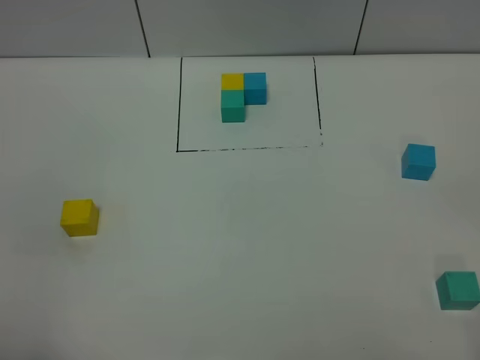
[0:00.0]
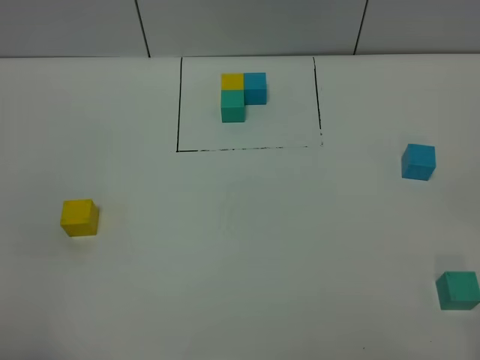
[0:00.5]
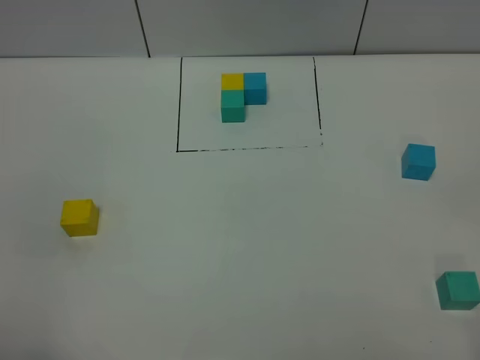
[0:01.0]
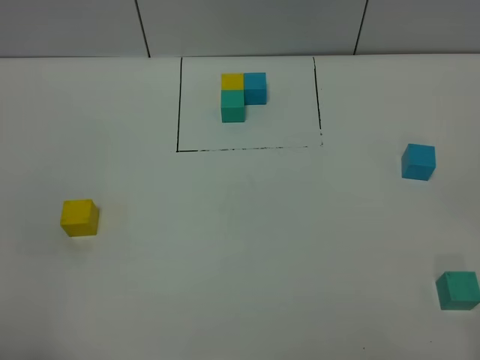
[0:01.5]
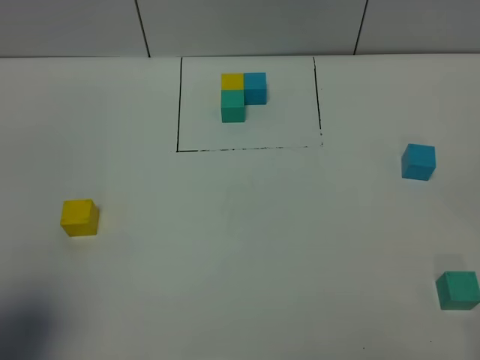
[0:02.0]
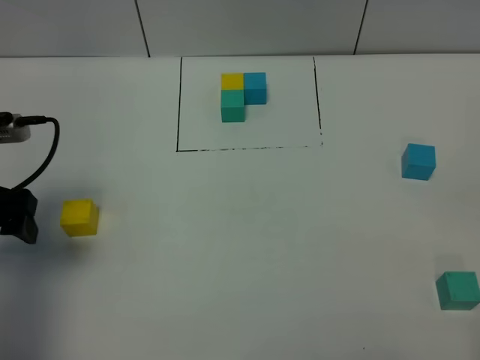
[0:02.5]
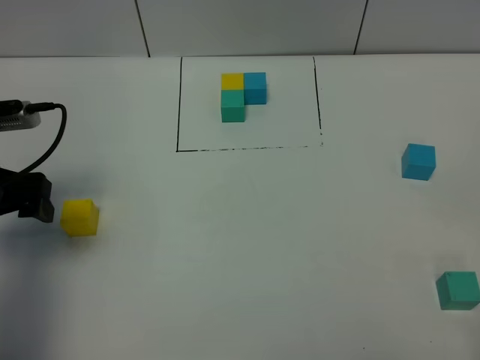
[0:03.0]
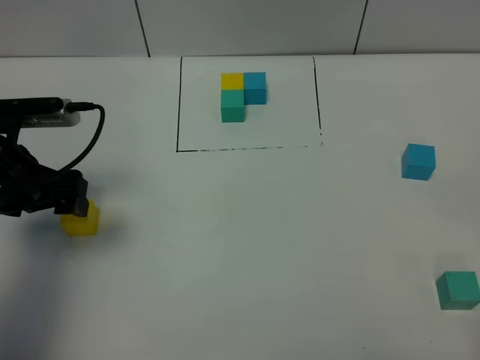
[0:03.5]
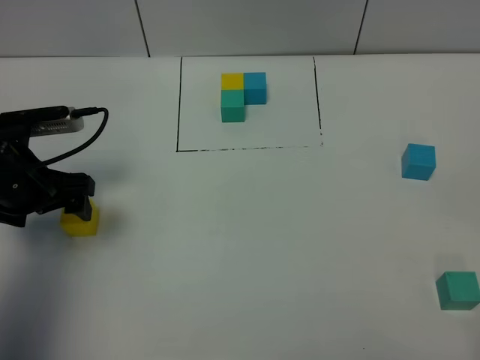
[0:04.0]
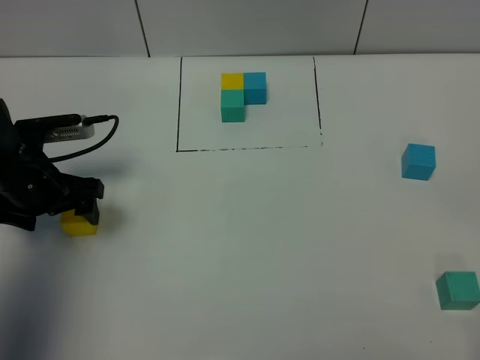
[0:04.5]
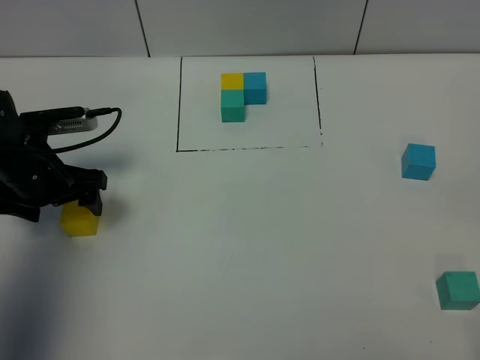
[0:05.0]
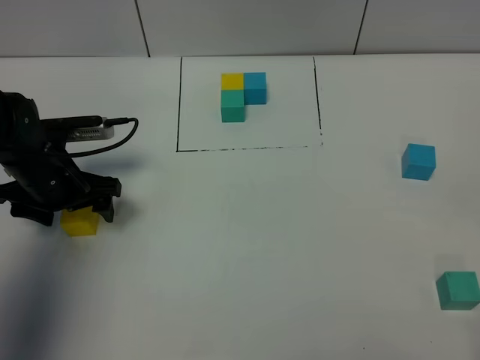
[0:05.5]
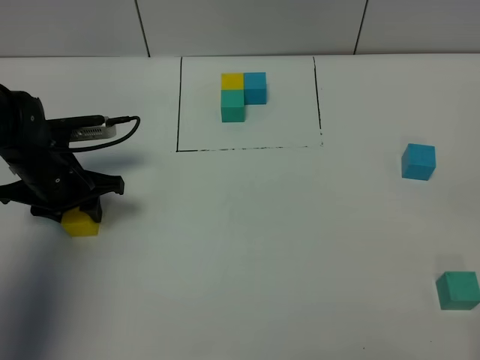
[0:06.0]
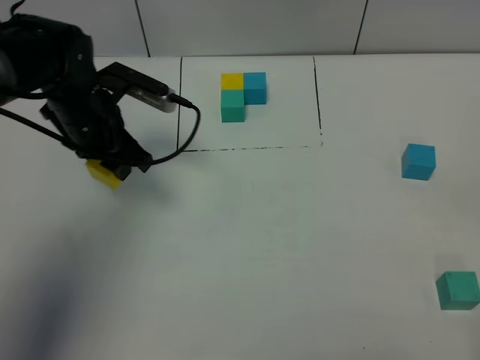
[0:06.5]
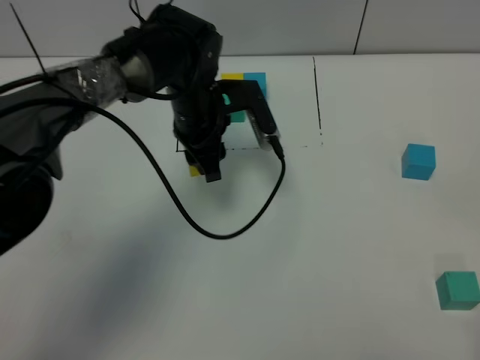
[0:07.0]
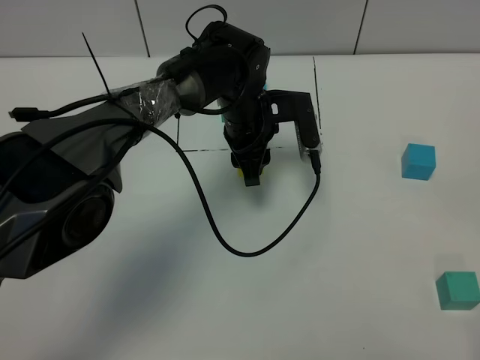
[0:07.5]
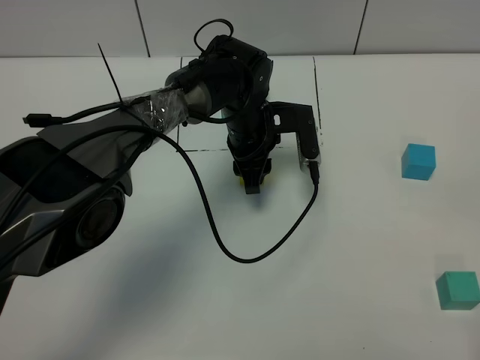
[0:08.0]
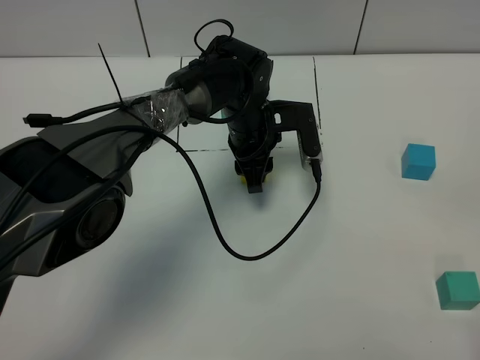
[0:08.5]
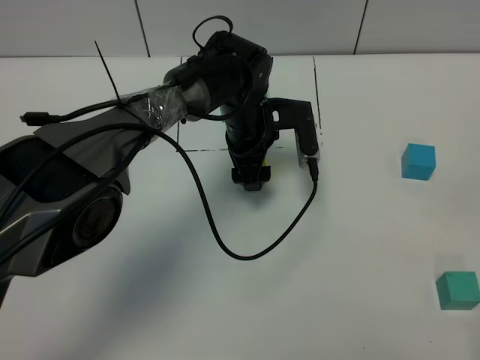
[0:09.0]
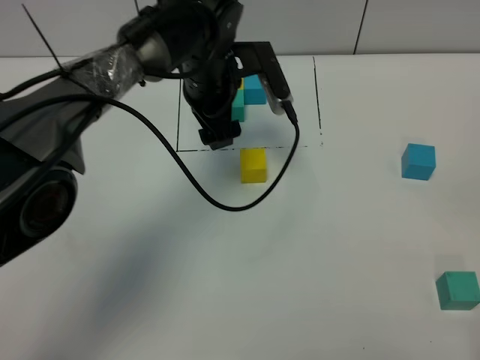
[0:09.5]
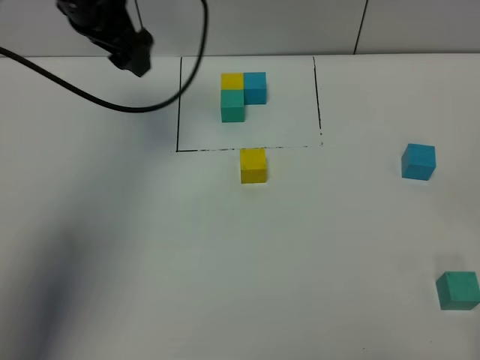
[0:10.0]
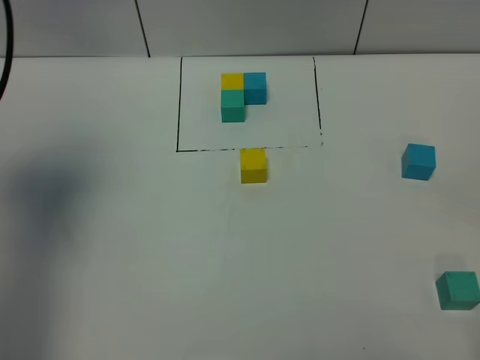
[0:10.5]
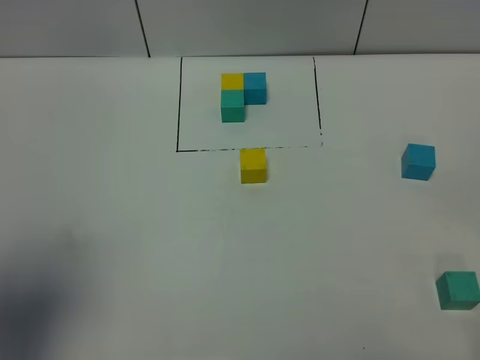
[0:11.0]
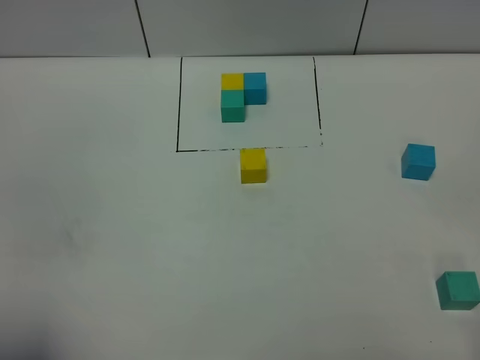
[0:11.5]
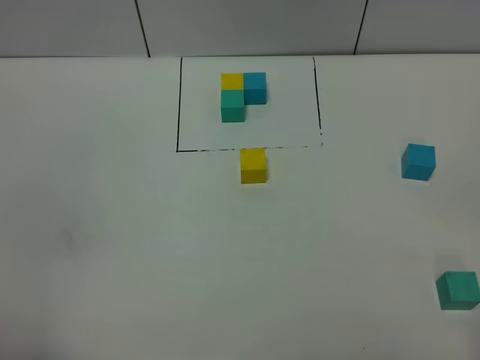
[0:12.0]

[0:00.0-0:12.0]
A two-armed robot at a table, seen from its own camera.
Task of the whole recording: According to the building block template in front, assemble the scattered blocks together.
Step, 0:00.0 to 0:08.5: Put the yellow build block in the center of the table.
0:00.0 to 0:02.0: The left gripper is displaced forward by some 10 cm.
0:02.0 to 0:04.0: The left gripper shifts roughly 25 cm forward and downward.
0:04.0 to 0:06.0: The left gripper changes place by roughly 5 cm, and closes up.
0:06.0 to 0:08.0: The left gripper goes approximately 25 cm to the right.
0:08.0 to 0:10.0: The left gripper goes about 25 cm to the left and upward, and opens up.
0:10.0 to 0:12.0: The left gripper heads backward, covering some 40 cm.

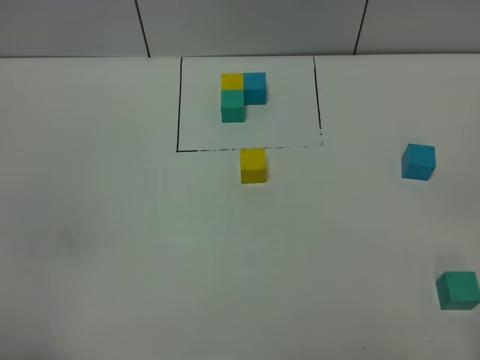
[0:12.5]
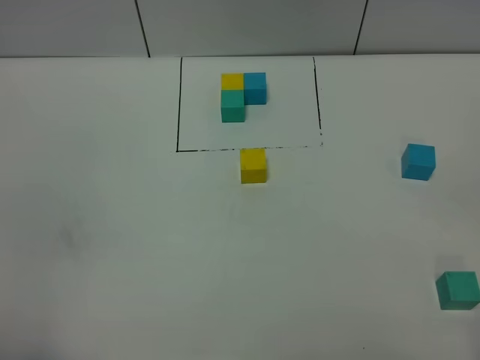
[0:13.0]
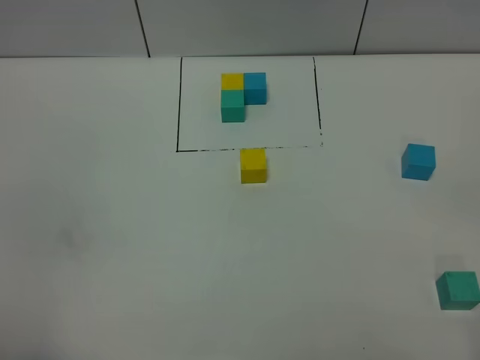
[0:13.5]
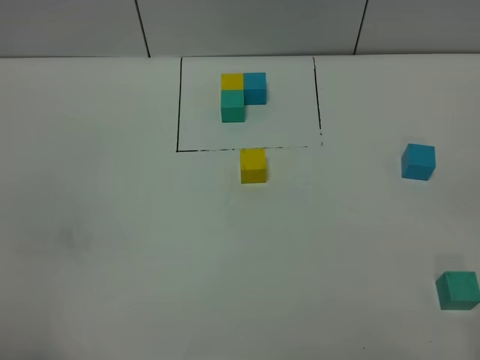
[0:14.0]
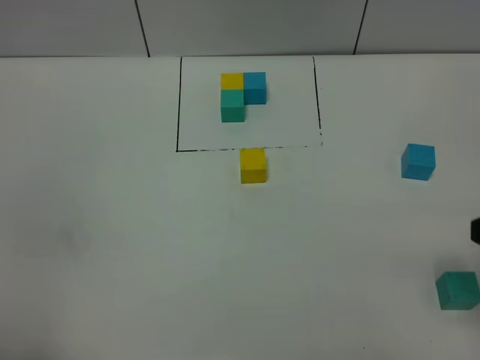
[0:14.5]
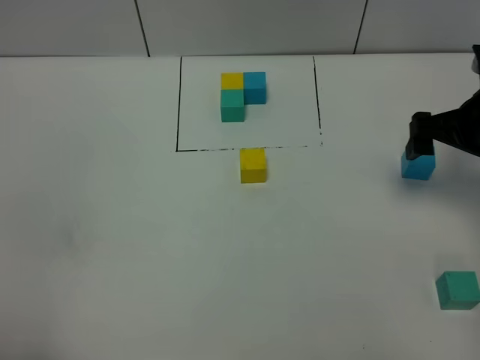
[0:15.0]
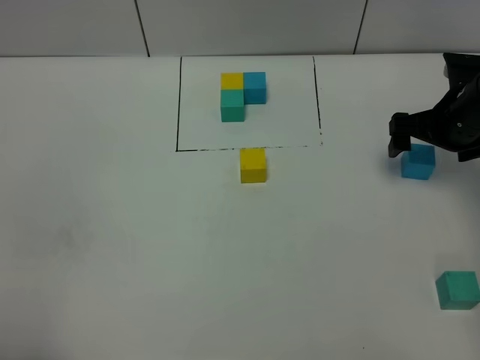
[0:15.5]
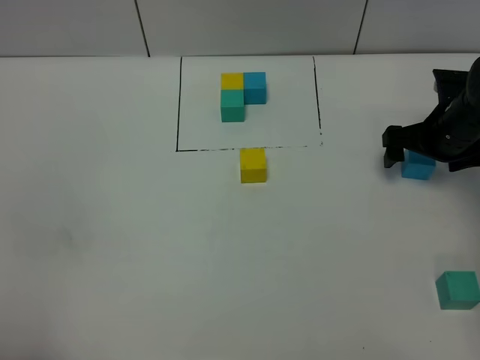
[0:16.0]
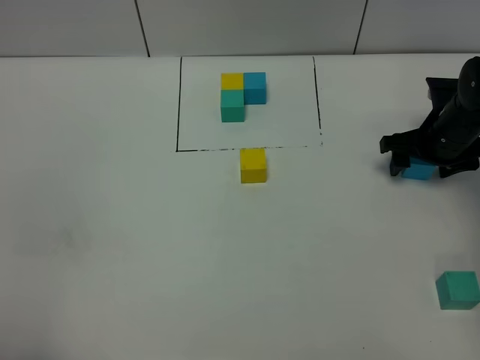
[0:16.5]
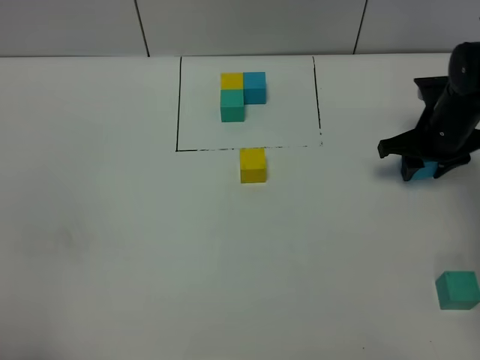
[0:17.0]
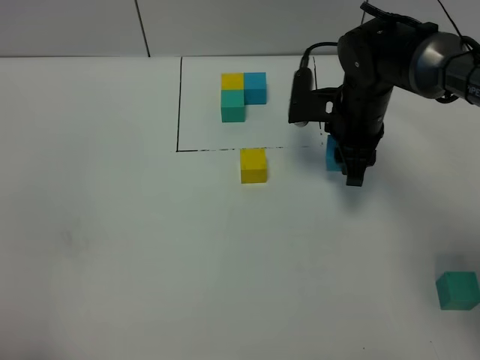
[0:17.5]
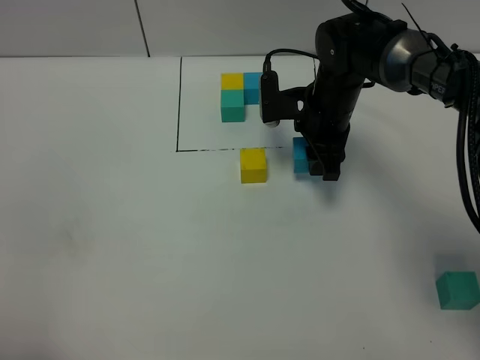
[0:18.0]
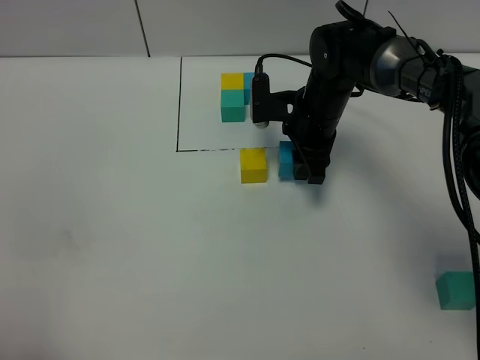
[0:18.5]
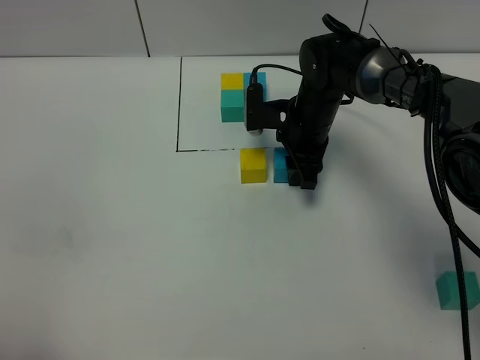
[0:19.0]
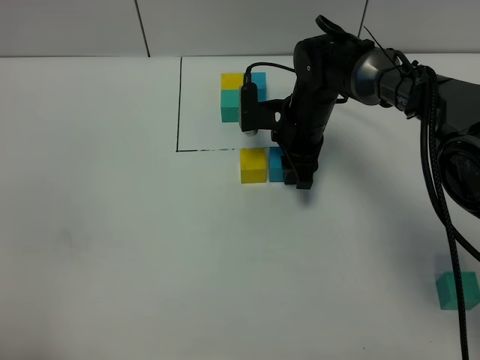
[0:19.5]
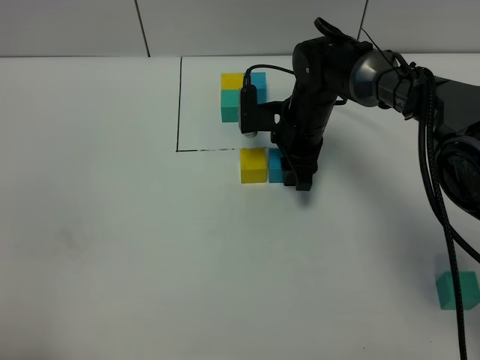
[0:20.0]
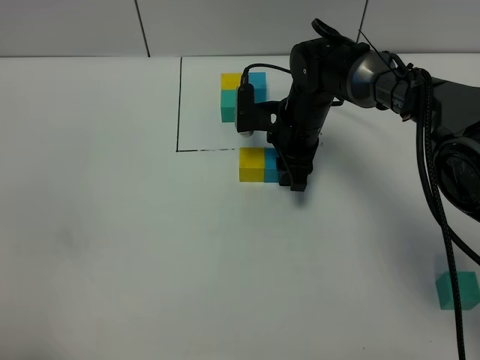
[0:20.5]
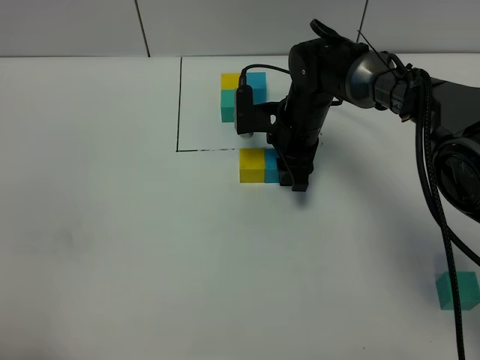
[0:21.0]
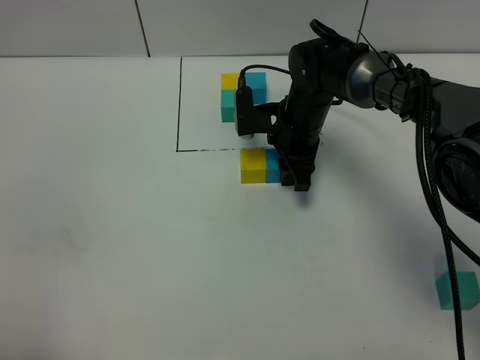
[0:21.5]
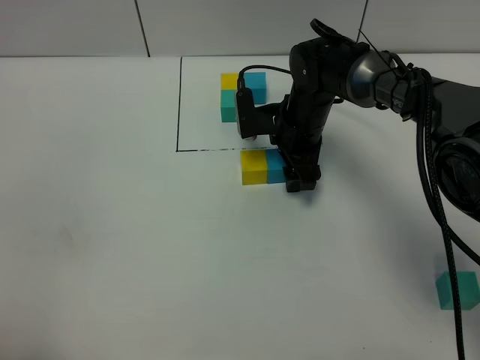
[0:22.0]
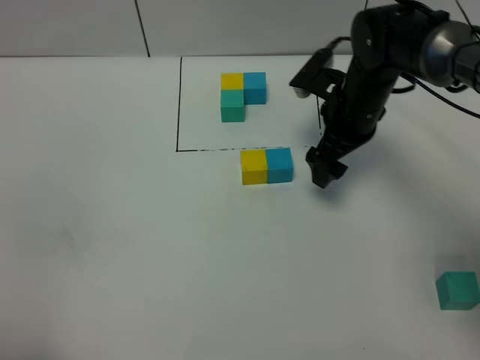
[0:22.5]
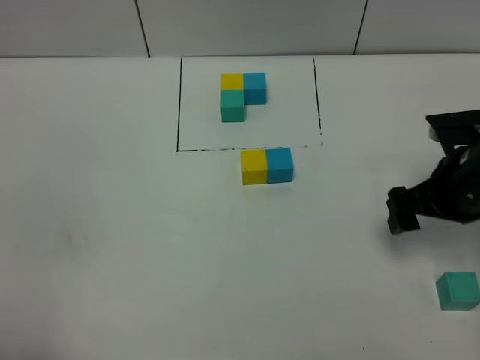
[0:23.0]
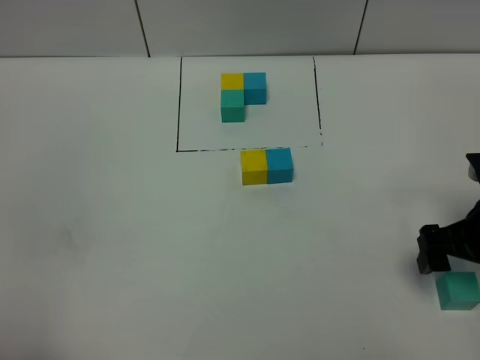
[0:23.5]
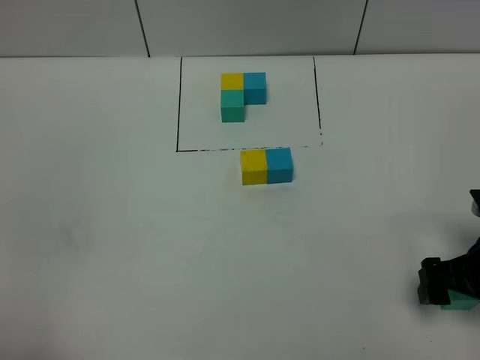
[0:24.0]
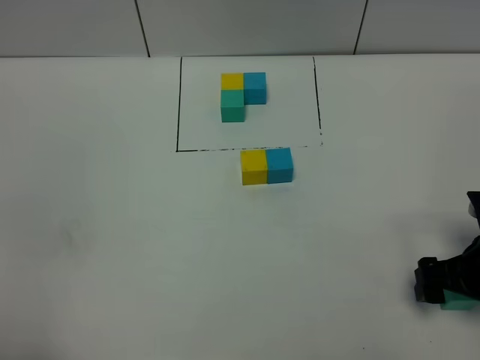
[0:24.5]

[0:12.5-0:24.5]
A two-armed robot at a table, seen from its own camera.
Task of the whole recording: According to the building block template in front, assemble the scattered blocks together.
Step, 0:12.5 to 0:21.5: Put the blue build block on the right of the yellow build block.
0:14.5 to 0:16.5: The right gripper travels forward and downward by roughly 30 cm, and closes its fingers.
0:16.5 to 0:18.5: The right gripper goes about 20 cm to the left, and closes up.
0:18.5 to 0:20.5: The grippers stay close to where they were, moving slightly.
0:20.5 to 0:22.5: The right gripper shifts approximately 10 cm to the right and upward, and opens its fingers.
0:22.5 to 0:24.5: The right gripper shifts roughly 25 cm backward and to the right.

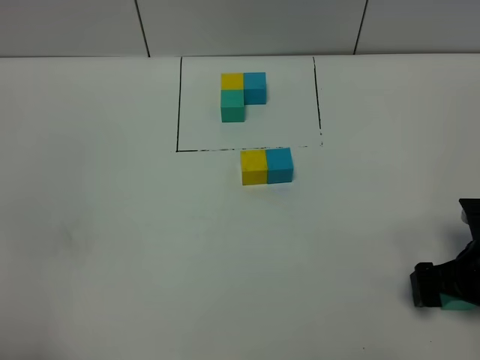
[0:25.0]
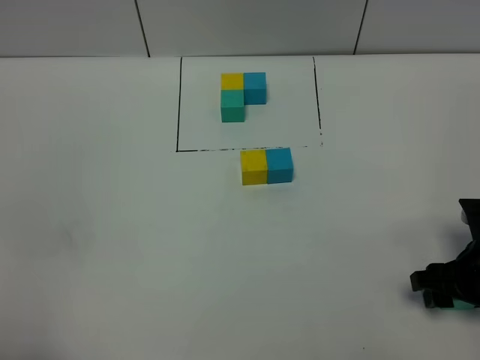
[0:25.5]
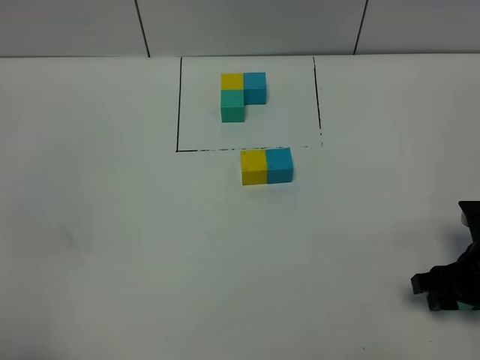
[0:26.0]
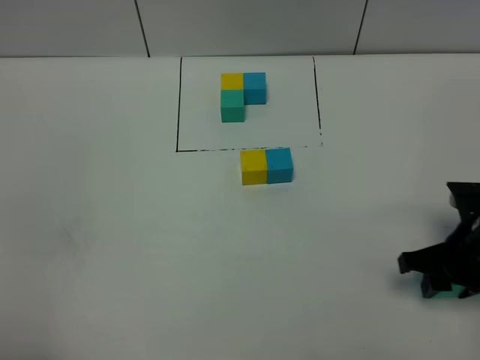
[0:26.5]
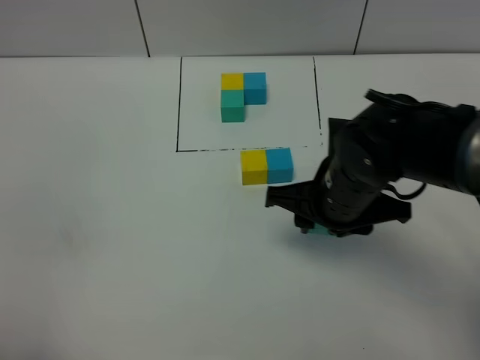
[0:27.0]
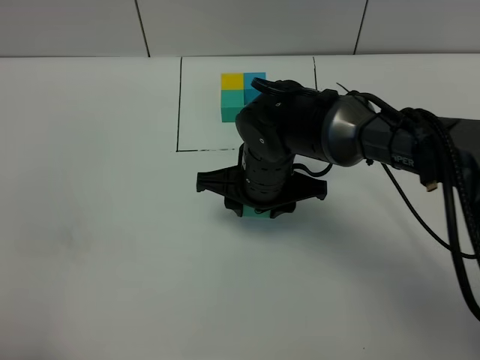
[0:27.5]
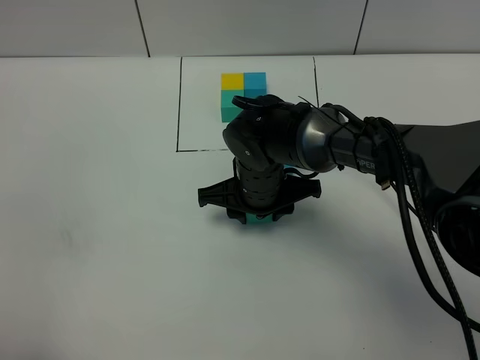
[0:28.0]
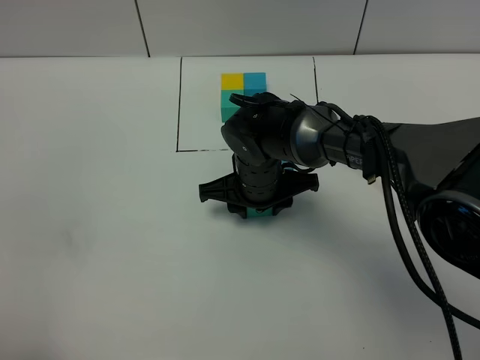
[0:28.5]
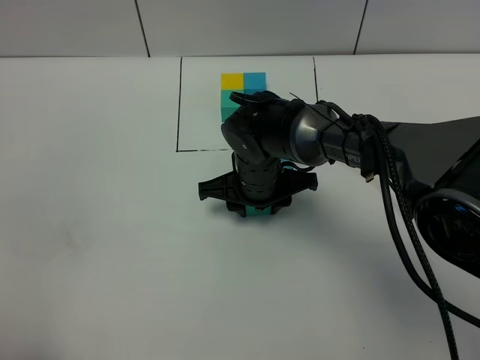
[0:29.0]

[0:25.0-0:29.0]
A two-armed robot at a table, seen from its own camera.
Task of the whole recording: According to the building block template in front, assemble the scattered blocks together.
0:25.0 to 0:27.0: The right gripper heads to the left and upward, covering approximately 20 cm, and closes.
0:27.0 to 0:29.0: The right gripper travels to the left, forward and downward by some 15 cm.
